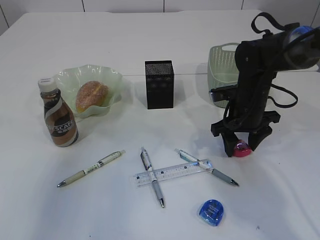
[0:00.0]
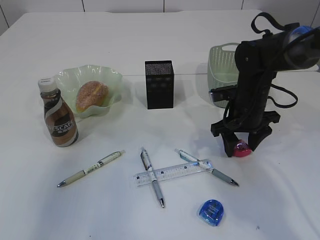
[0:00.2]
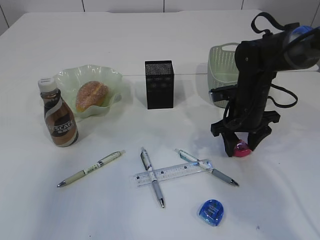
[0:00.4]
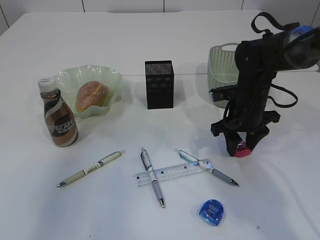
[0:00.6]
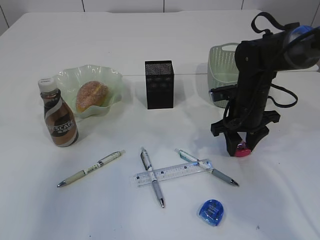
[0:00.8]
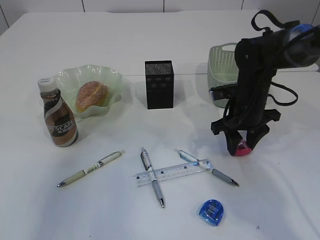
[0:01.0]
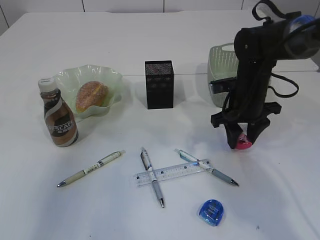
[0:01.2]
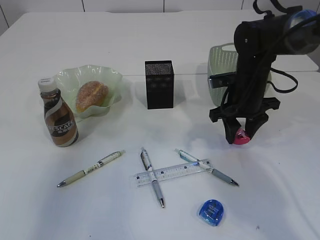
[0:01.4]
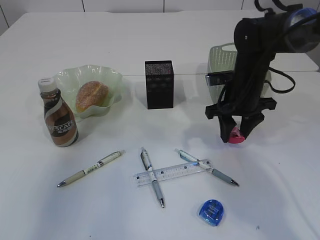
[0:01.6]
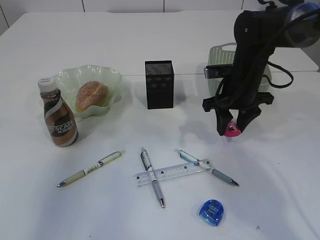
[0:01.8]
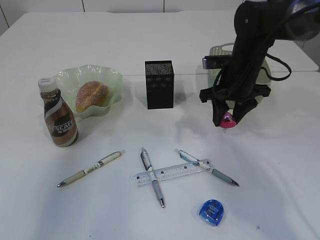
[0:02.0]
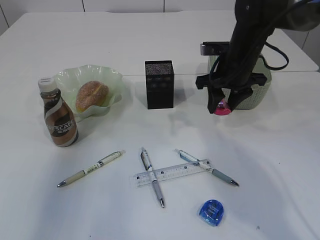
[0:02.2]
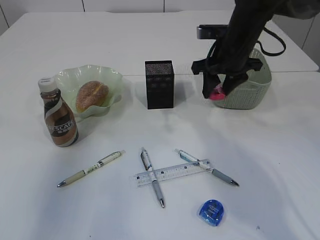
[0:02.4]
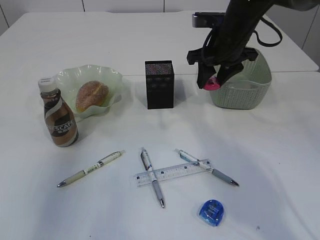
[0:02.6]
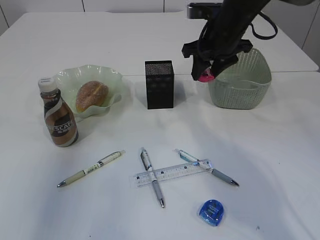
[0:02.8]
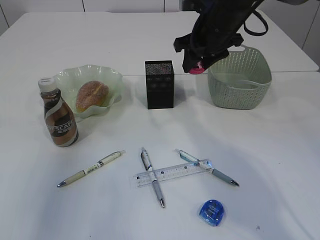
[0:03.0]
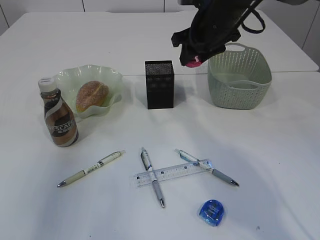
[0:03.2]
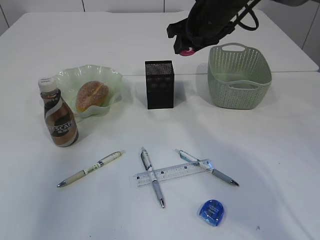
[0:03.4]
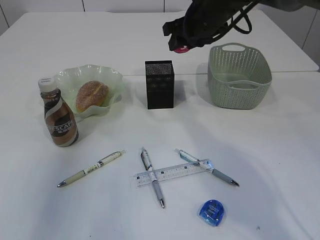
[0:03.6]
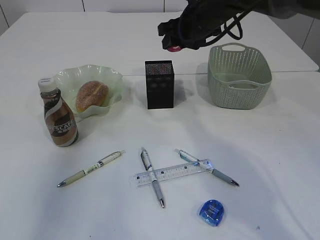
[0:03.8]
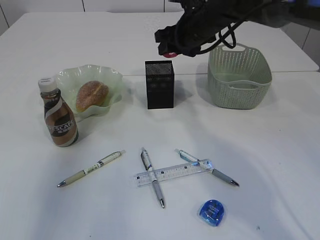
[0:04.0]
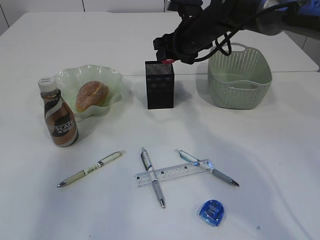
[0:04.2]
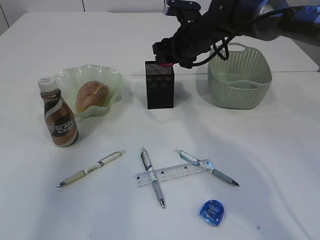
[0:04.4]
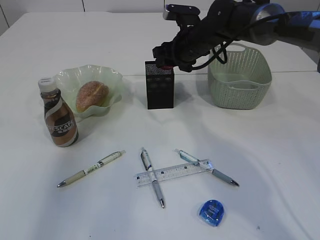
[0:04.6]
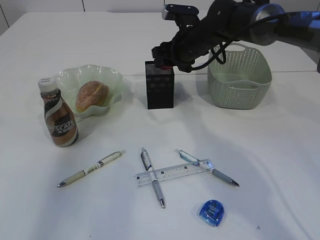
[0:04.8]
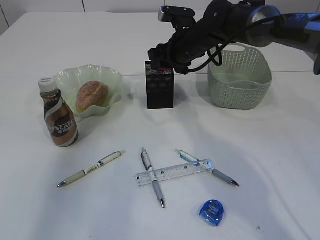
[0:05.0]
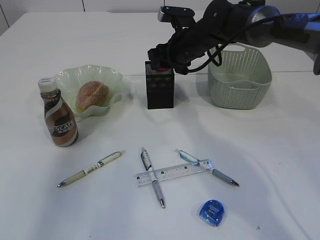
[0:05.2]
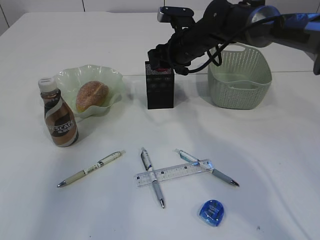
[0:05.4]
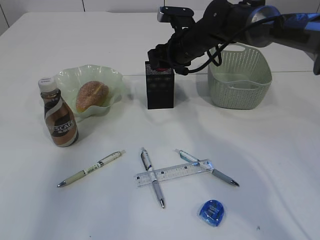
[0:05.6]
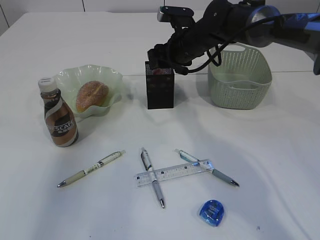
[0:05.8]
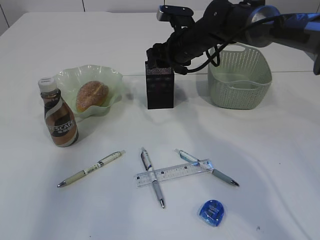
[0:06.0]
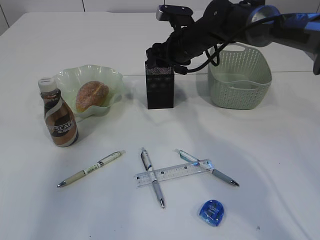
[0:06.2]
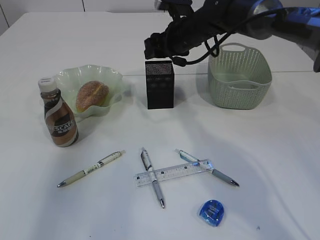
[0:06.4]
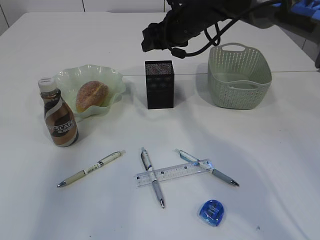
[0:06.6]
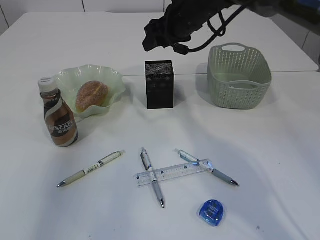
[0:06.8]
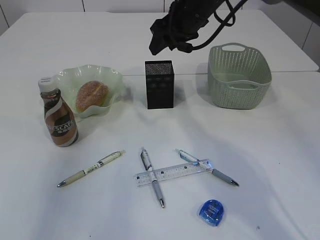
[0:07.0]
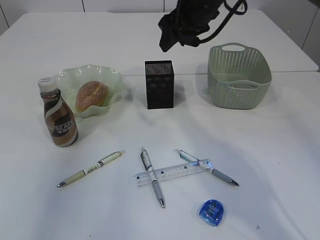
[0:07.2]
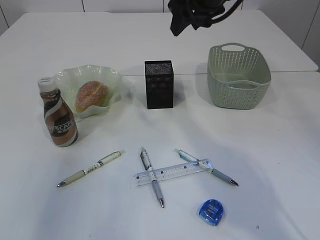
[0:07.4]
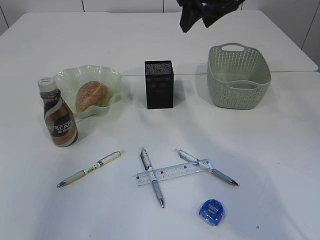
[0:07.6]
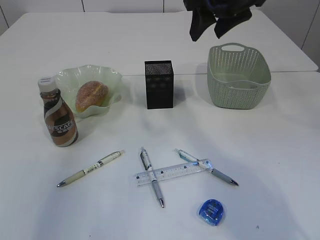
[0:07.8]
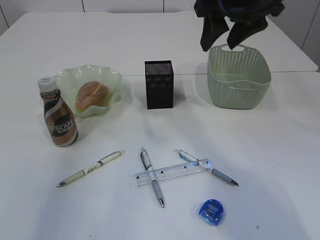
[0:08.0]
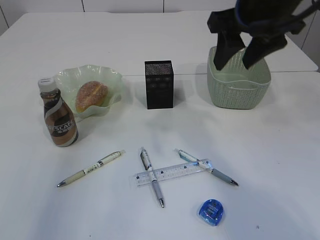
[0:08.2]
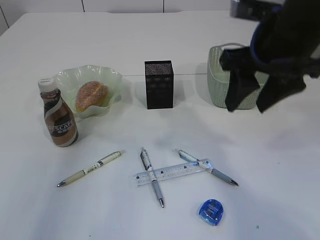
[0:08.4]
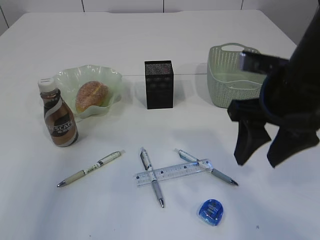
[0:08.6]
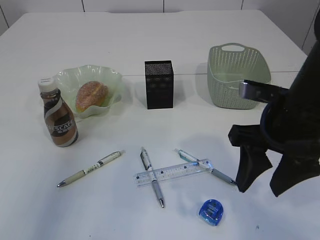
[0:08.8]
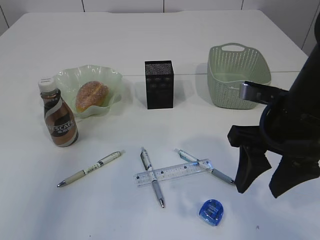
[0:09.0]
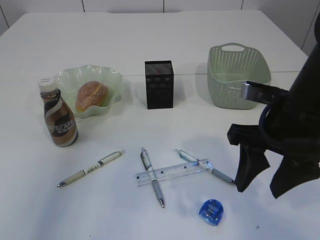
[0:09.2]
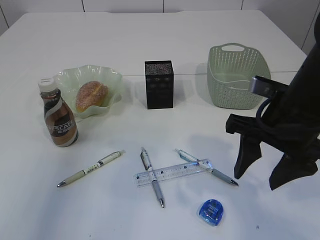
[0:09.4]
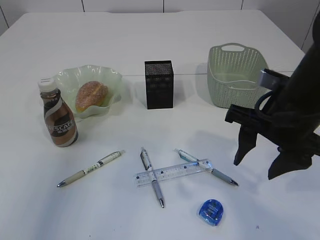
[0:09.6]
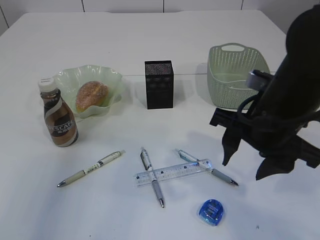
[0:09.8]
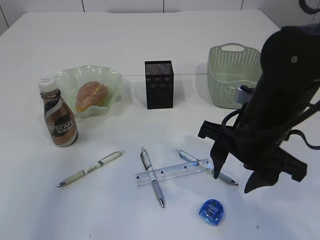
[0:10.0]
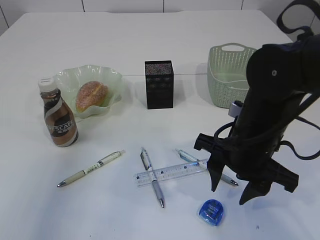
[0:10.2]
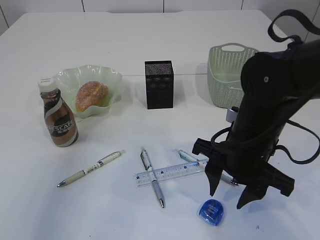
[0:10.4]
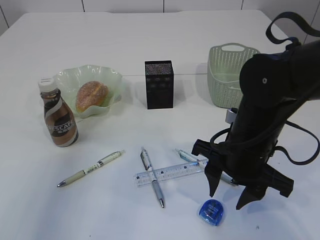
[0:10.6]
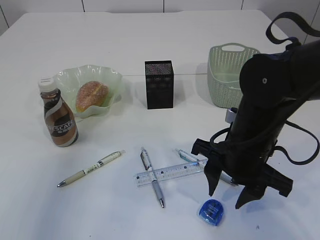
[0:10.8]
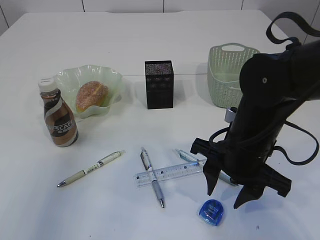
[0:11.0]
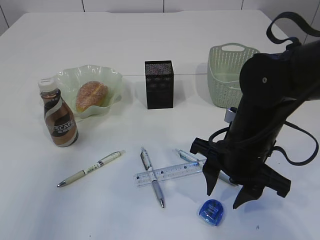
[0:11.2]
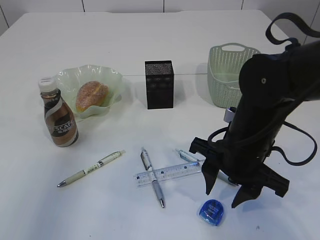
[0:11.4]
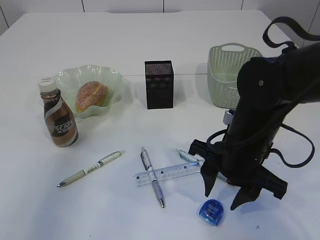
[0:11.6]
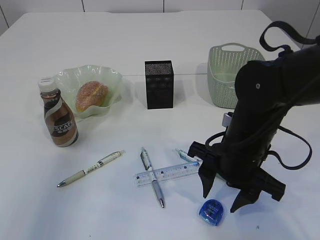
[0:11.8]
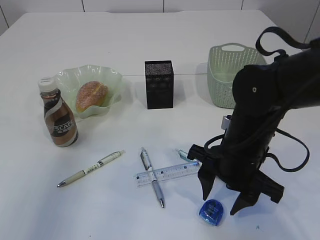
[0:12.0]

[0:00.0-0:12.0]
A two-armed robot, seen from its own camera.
Step, 0:02.0 to 0:06.2: Place the red pencil sharpener into the pen holder.
0:00.0 to 0:01.6: The grippers stay close to where they were, moving slightly.
0:01.6 to 0:03.0: The right gripper heads upward, covering about 10 cm.
0:03.0 to 0:04.4: The right gripper ends up roughly 5 cm from where it was.
0:04.4 to 0:06.0: There are only small adjustments of the grippers.
0:06.0 to 0:07.6: The right gripper shifts roughly 15 cm upward and backward.
0:07.6 to 0:09.0: The right gripper goes roughly 25 cm backward and downward.
0:09.0 to 0:10.4: The right gripper moves downward, roughly 5 cm.
0:10.4 to 0:12.0: The grippers make only small movements.

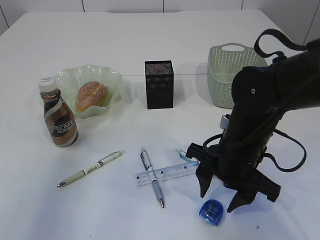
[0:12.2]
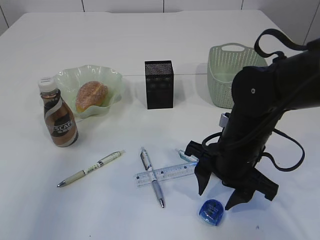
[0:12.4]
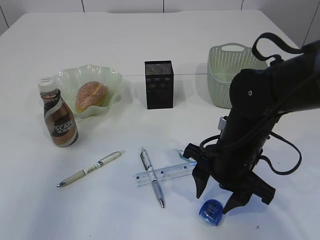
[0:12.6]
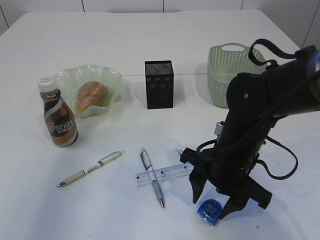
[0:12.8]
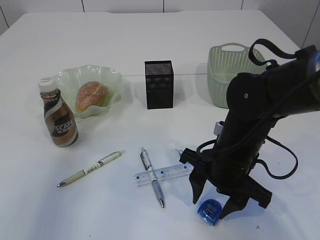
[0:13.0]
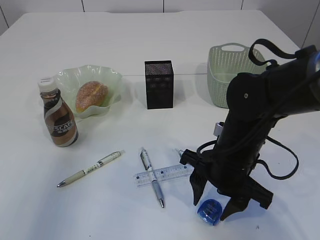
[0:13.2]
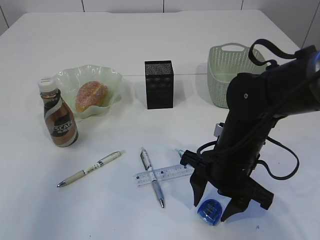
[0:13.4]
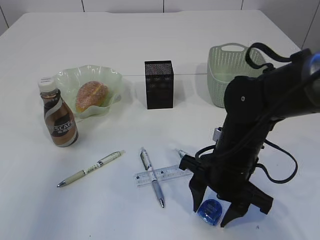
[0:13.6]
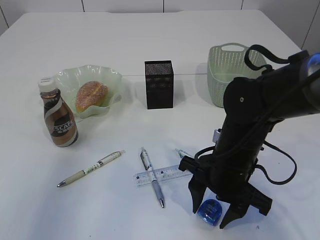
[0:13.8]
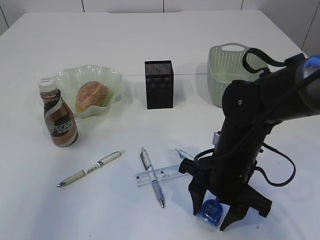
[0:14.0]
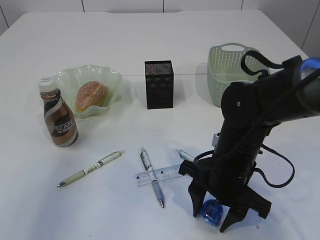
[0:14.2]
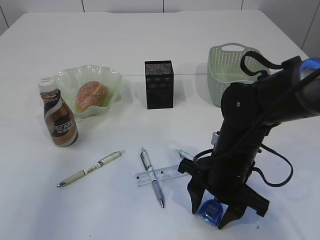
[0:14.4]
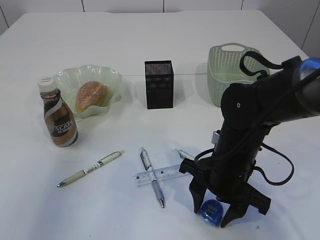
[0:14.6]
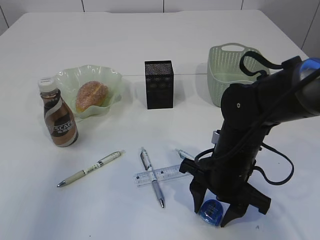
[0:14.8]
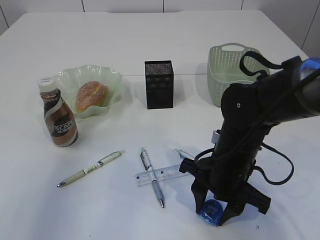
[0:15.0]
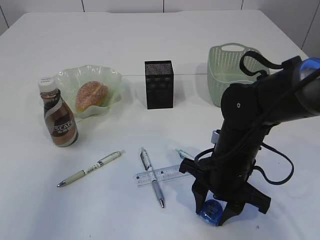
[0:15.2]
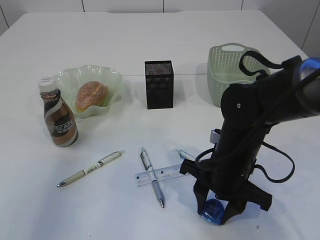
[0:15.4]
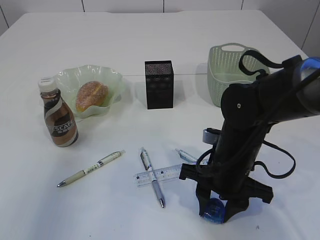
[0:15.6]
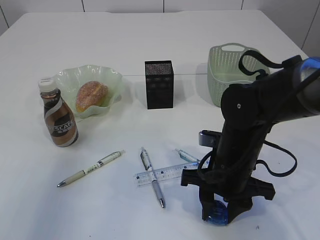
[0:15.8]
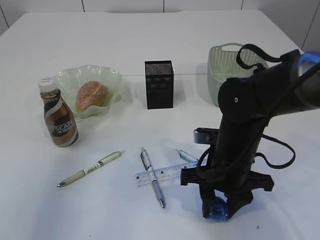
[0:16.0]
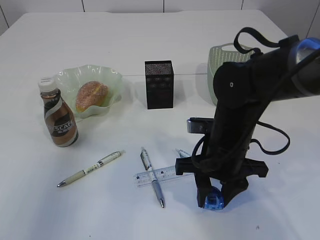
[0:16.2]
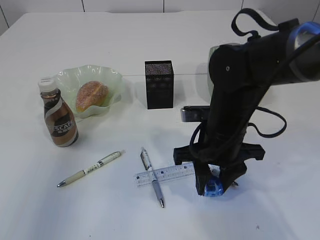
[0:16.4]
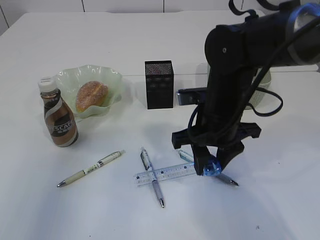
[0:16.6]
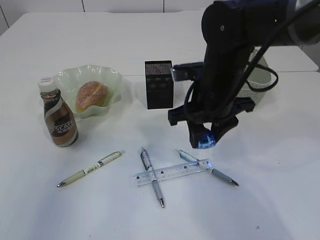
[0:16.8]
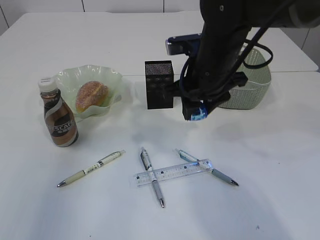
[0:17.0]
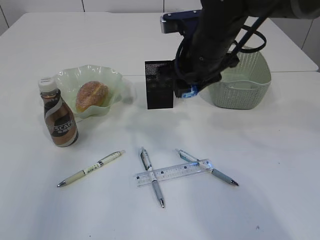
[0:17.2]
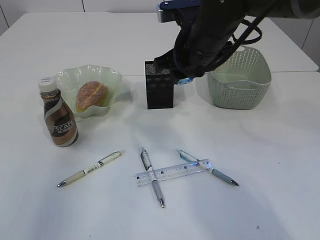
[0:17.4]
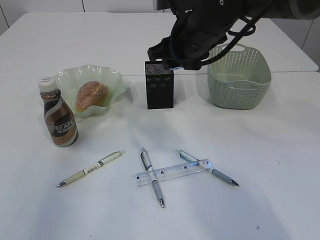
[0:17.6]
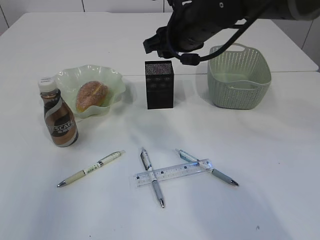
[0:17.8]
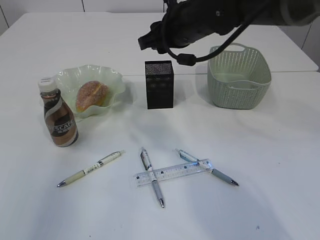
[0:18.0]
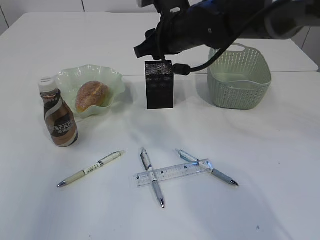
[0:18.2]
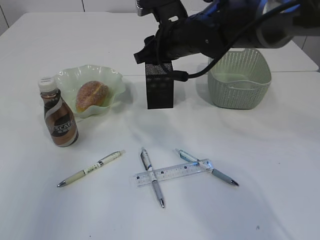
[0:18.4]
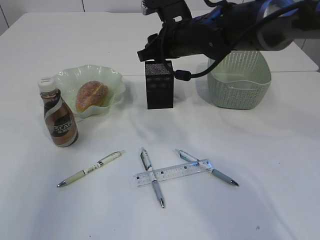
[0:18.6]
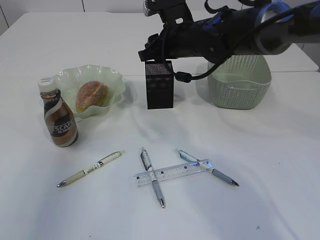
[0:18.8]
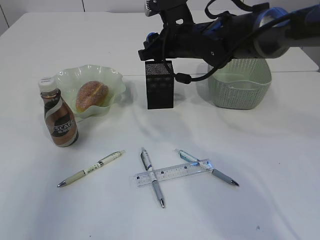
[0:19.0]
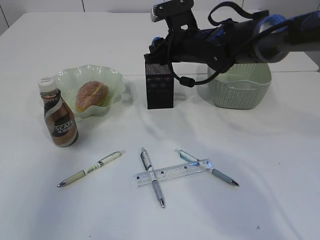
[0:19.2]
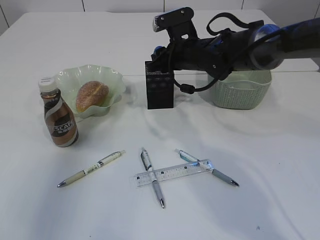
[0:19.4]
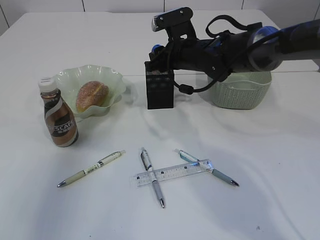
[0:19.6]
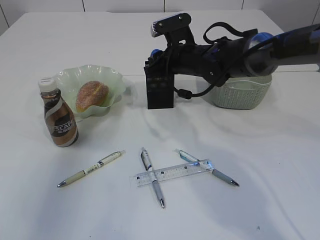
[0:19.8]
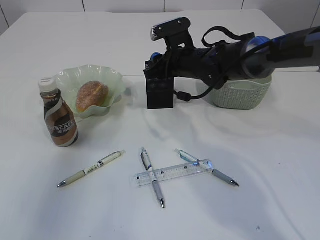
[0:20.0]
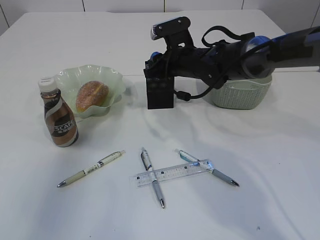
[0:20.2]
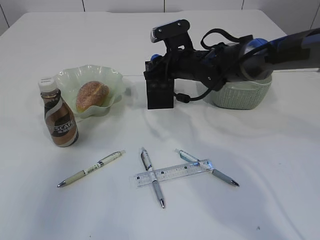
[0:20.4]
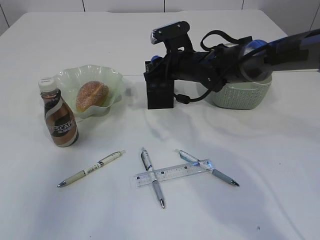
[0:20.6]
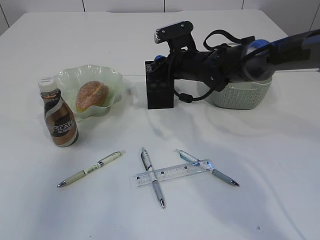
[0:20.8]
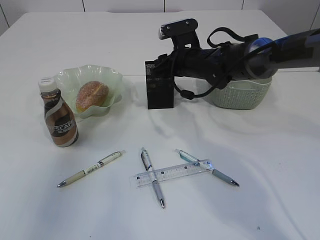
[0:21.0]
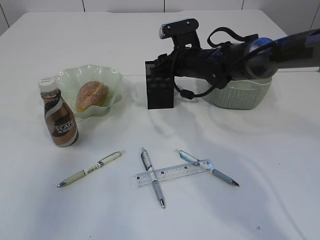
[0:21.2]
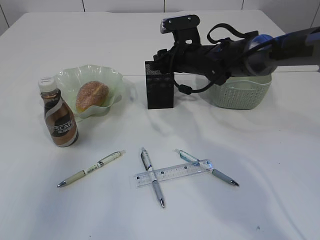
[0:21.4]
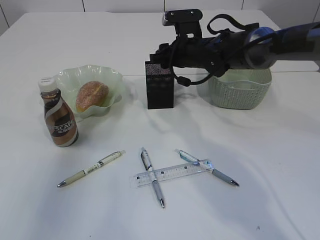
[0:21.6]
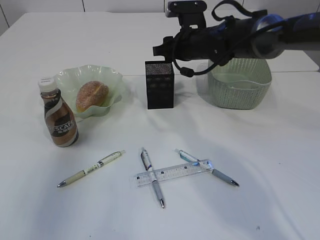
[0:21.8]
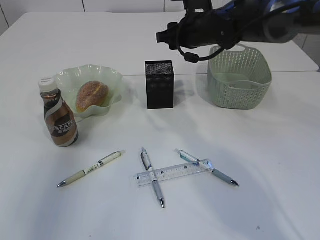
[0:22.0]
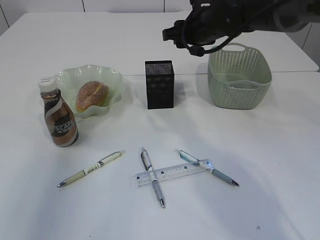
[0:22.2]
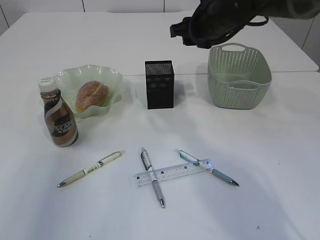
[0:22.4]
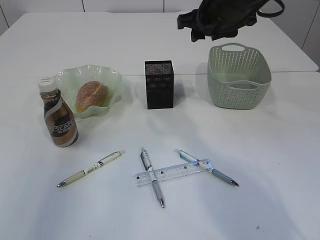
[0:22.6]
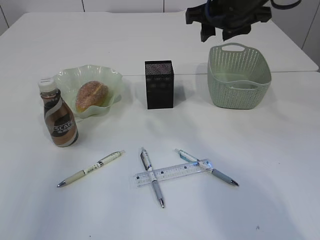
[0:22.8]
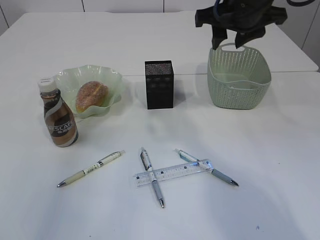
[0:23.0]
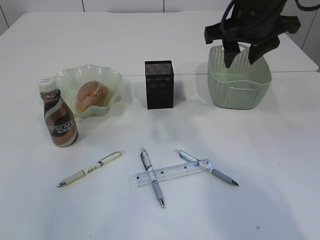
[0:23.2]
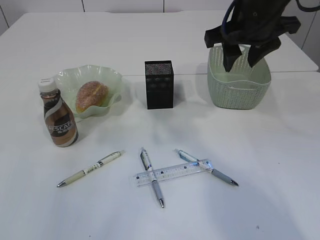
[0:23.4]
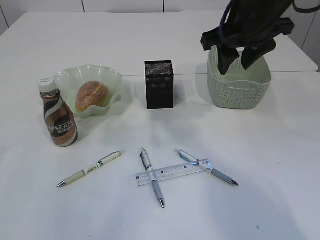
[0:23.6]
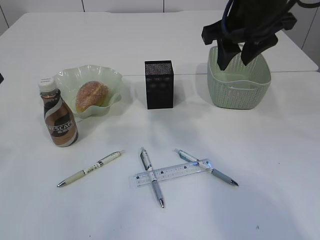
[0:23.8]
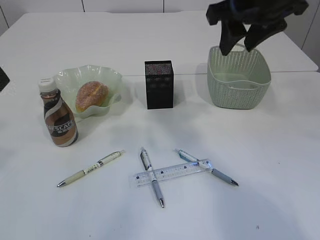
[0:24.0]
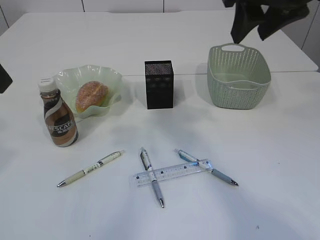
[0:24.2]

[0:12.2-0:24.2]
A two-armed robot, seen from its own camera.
Step, 0:12.2 to 0:16.4: Pick up the blue pencil sharpener.
Step, 0:16.6 to 0:21.8: Place the blue pencil sharpener into the pen holder.
0:12.2 to 0:13.8: The grippers make only small movements.
0:13.8 to 0:15.2: Both grippers stay about where they are.
0:15.2 to 0:16.6: The right gripper is displaced upward by about 5 cm.
0:16.6 to 0:18.2: The right gripper goes about 15 cm forward and upward.
0:18.2 to 0:19.8: The right gripper is displaced downward and forward by some 10 cm.
0:19.8 to 0:21.2: The grippers move only a little.
0:21.2 to 0:22.6: The right gripper shifts about 10 cm upward.
0:22.6 to 0:24.2: The left gripper is displaced to the right by approximately 5 cm; the right gripper is displaced backward and upward by some 15 cm.
